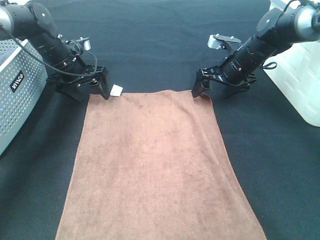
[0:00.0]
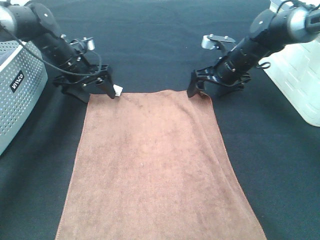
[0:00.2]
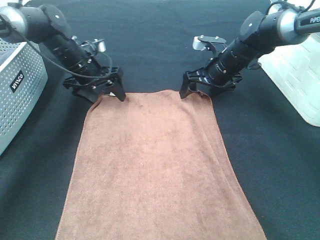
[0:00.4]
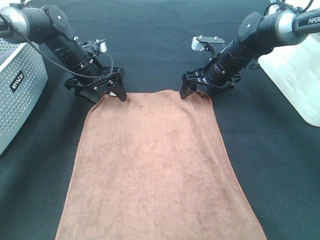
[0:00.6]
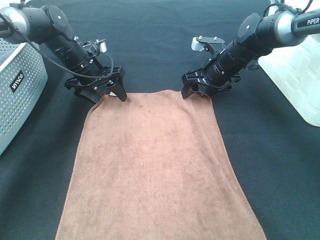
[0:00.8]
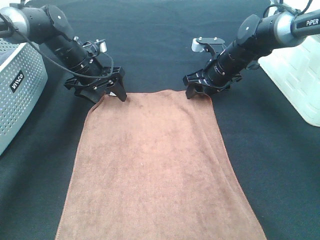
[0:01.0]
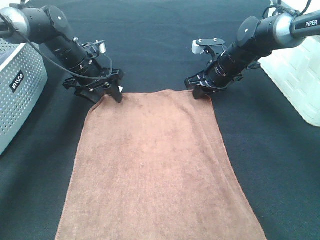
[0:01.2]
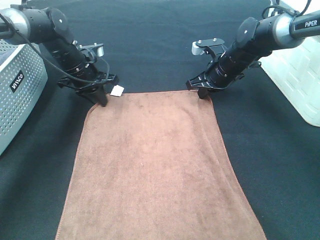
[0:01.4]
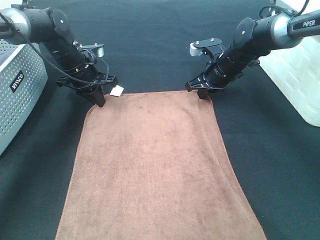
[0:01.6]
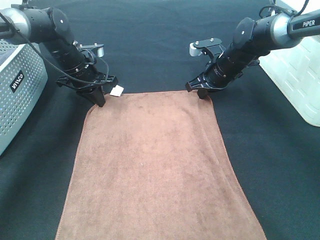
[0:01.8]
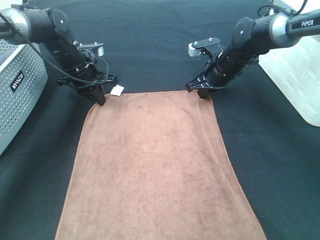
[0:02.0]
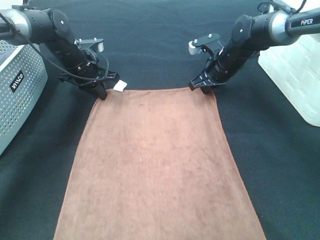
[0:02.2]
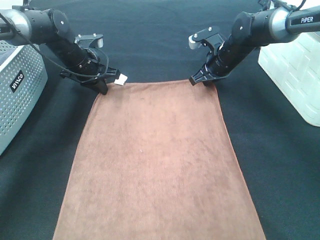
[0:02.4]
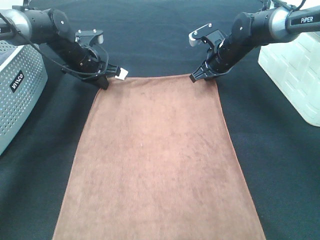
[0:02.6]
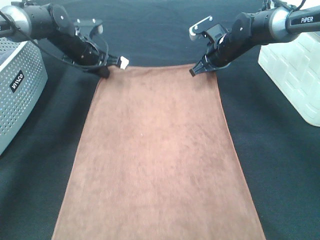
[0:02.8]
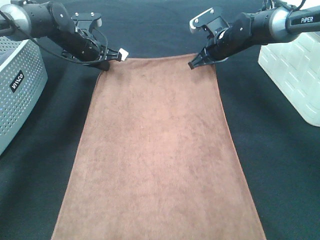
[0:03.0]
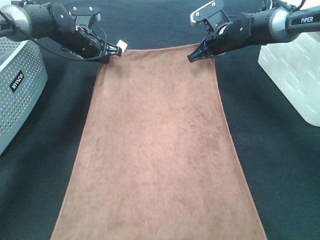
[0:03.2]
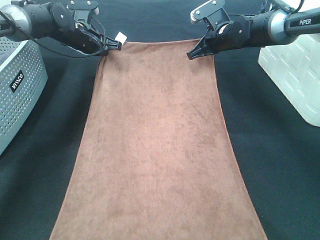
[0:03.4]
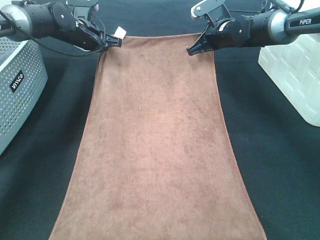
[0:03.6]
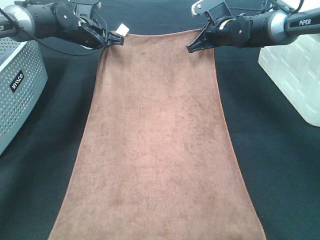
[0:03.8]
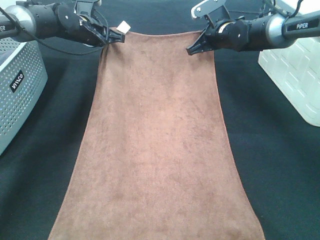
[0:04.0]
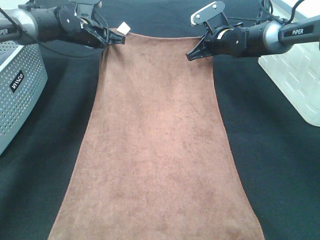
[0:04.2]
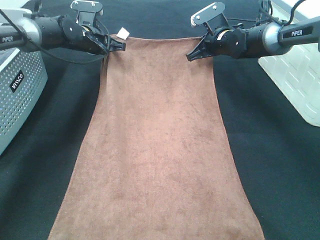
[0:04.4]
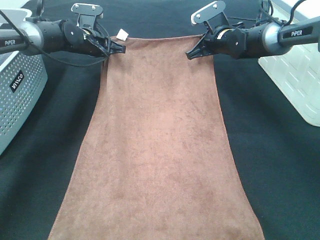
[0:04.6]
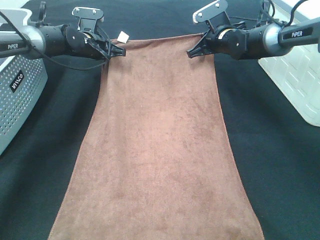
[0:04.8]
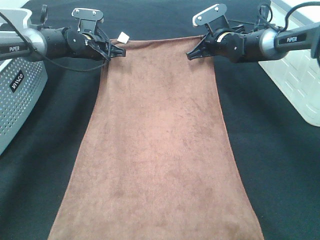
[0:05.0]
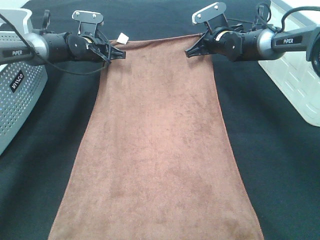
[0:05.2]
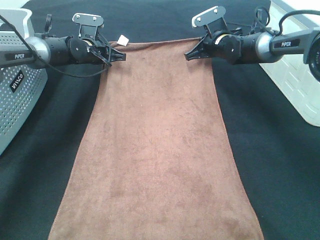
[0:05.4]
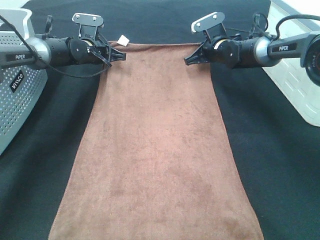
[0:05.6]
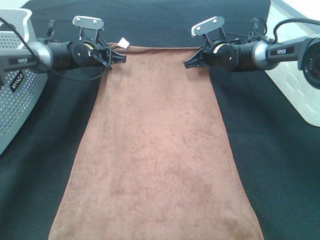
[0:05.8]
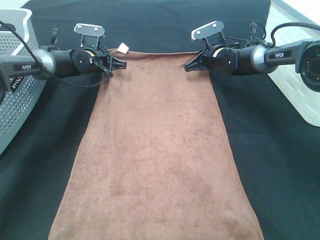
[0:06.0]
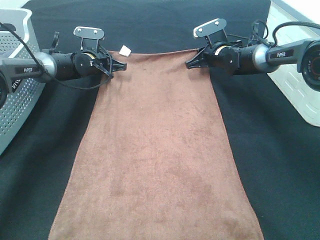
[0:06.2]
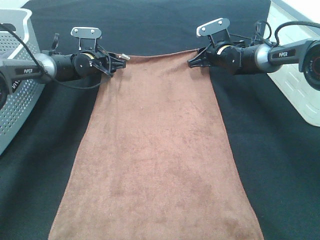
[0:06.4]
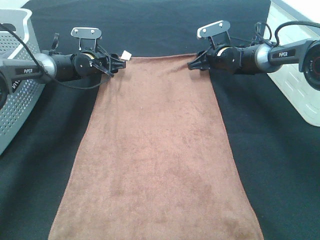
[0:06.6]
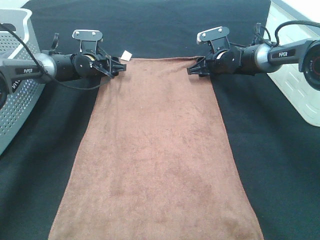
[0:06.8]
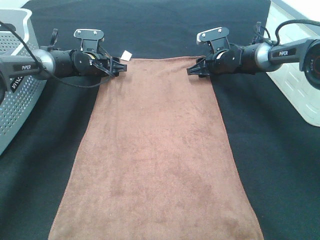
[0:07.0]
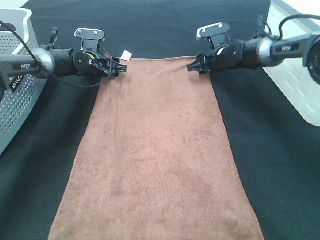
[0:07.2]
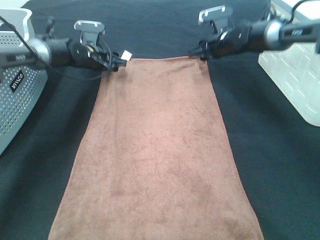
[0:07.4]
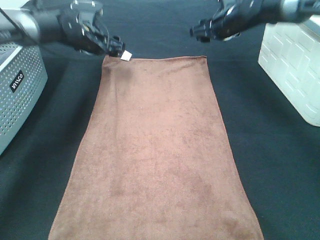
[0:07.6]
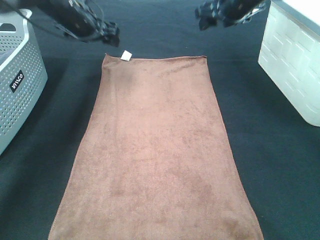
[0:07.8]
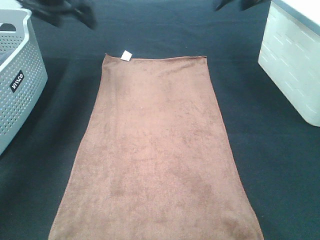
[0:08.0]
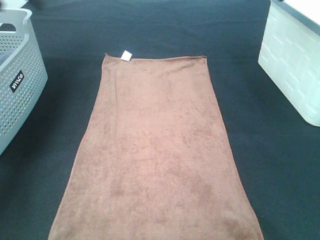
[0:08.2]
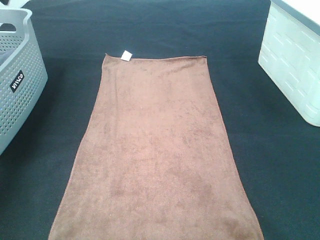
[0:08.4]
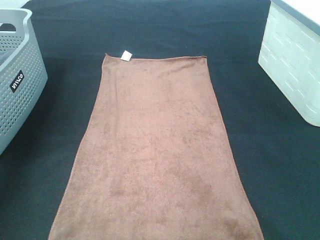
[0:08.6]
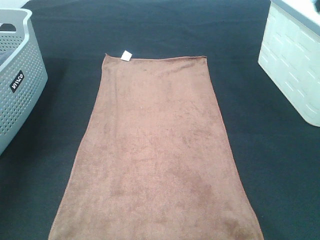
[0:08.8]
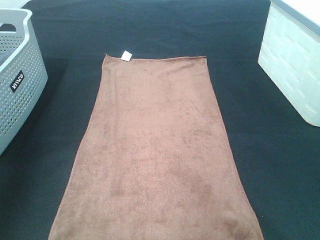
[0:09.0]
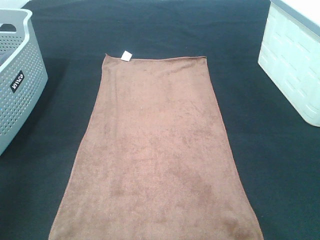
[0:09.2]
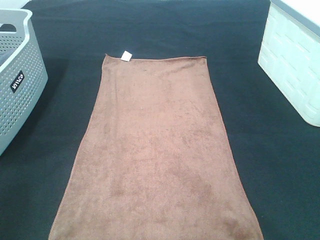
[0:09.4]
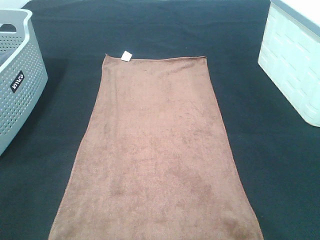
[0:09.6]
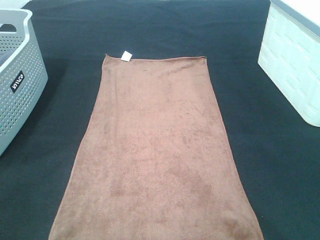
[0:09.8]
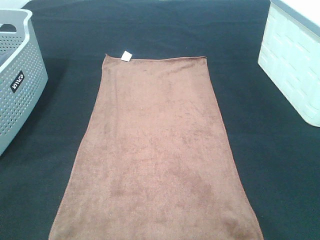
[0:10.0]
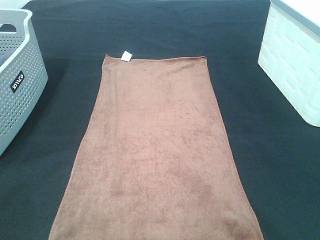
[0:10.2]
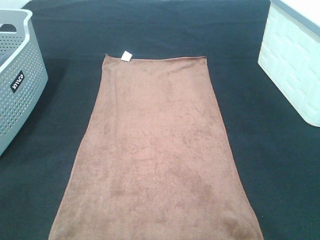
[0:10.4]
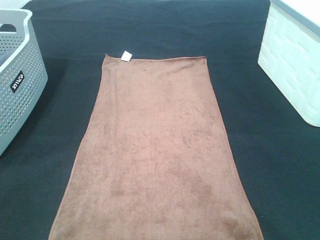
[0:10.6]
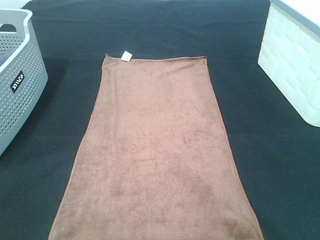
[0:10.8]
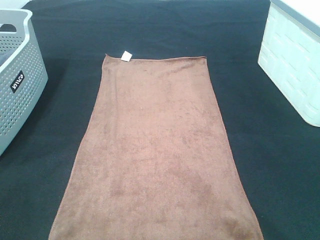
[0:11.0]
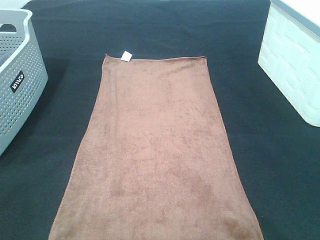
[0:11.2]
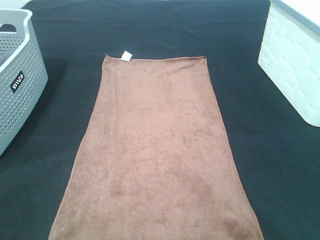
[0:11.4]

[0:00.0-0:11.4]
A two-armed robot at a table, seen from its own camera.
Task of the whole recording: Remove the towel and place it.
0:00.0 to 0:01.4: The right gripper closes up. The left gripper closes up.
0:04.2 to 0:05.6: The left gripper moves downward, some 5 cm.
0:05.6 to 0:07.2: The right gripper opens. The left gripper opens its fingers.
0:07.2 to 0:08.6: The left gripper goes approximately 40 cm upward, backward and to the left, while the right gripper shifts approximately 40 cm upward and backward.
0:08.6 to 0:10.0: Both grippers move backward, approximately 40 cm.

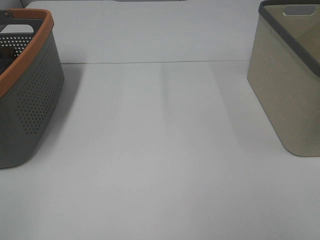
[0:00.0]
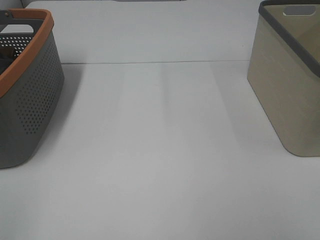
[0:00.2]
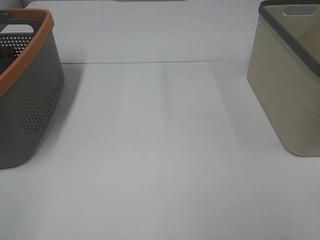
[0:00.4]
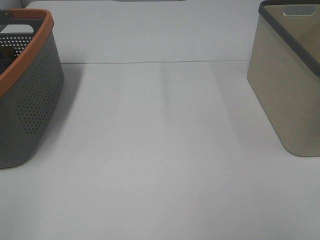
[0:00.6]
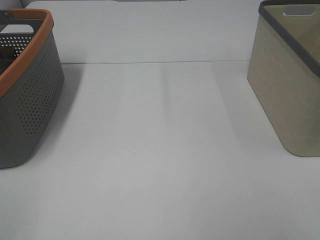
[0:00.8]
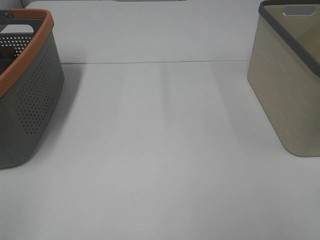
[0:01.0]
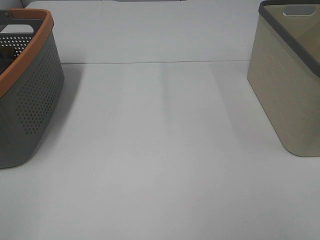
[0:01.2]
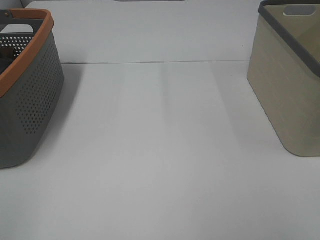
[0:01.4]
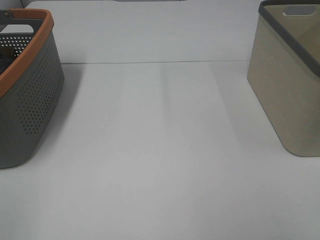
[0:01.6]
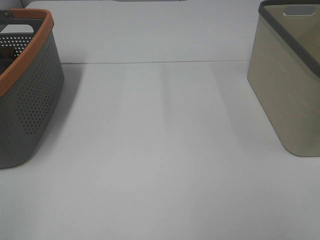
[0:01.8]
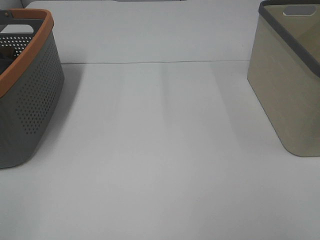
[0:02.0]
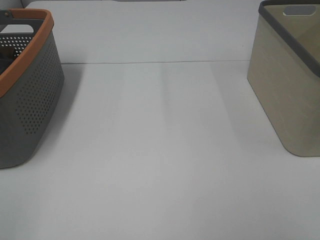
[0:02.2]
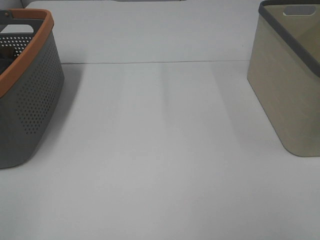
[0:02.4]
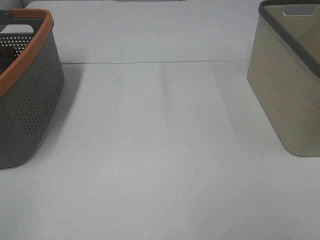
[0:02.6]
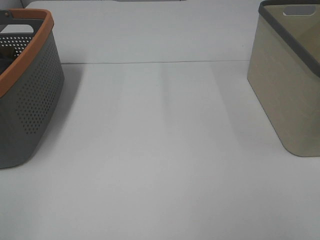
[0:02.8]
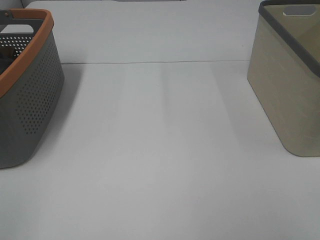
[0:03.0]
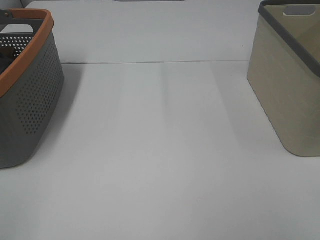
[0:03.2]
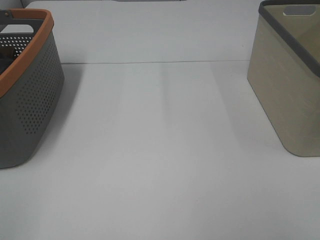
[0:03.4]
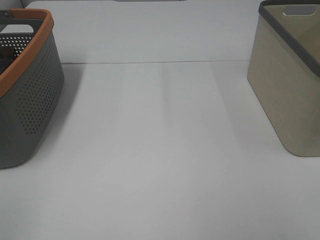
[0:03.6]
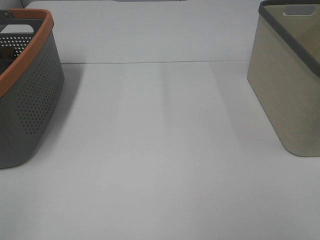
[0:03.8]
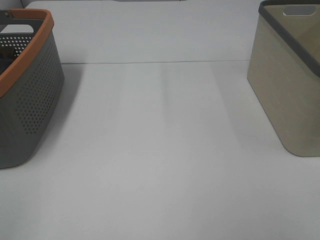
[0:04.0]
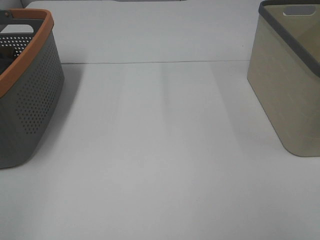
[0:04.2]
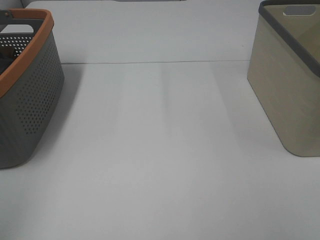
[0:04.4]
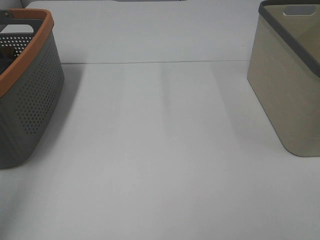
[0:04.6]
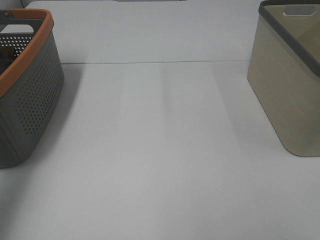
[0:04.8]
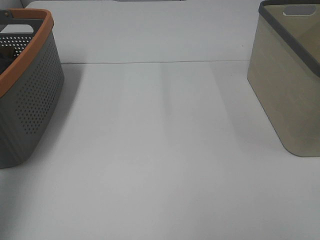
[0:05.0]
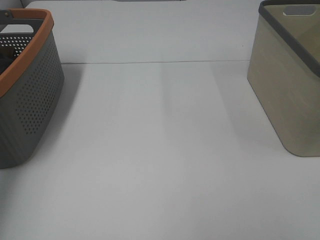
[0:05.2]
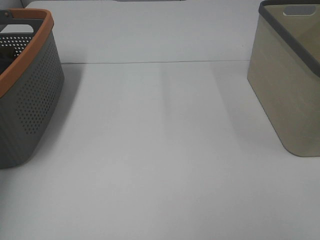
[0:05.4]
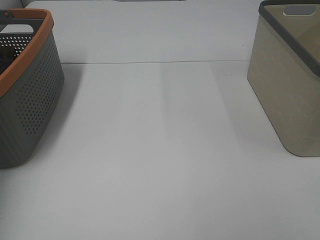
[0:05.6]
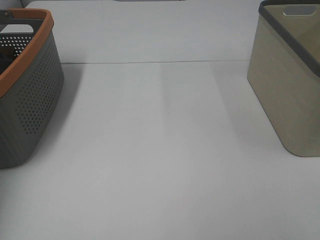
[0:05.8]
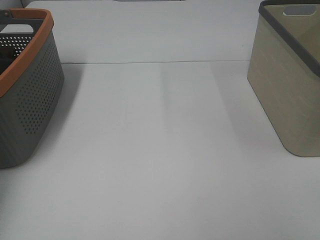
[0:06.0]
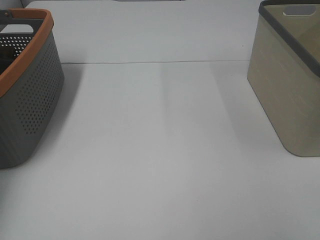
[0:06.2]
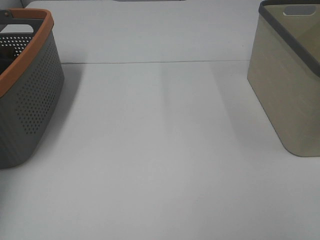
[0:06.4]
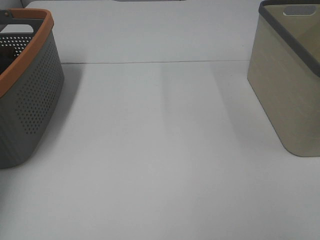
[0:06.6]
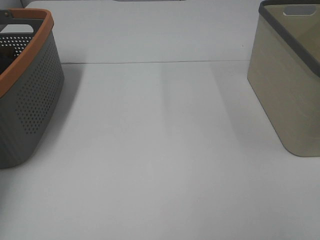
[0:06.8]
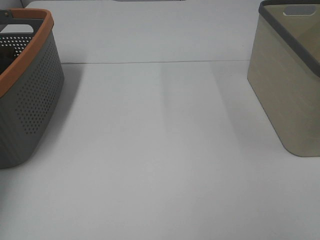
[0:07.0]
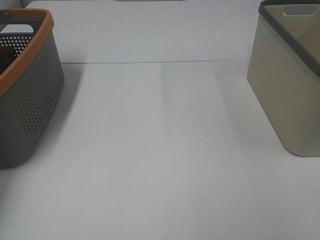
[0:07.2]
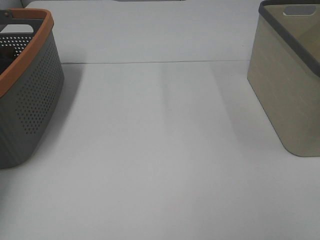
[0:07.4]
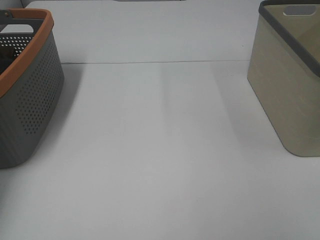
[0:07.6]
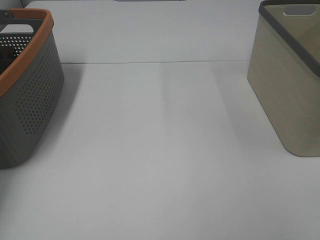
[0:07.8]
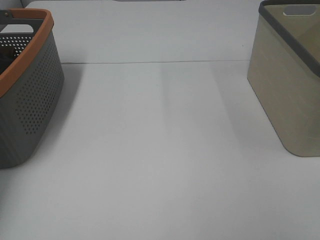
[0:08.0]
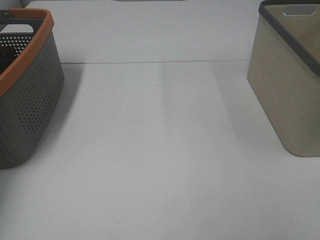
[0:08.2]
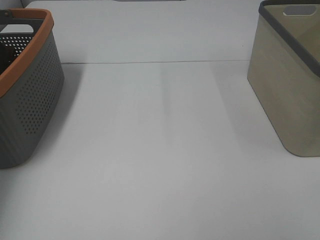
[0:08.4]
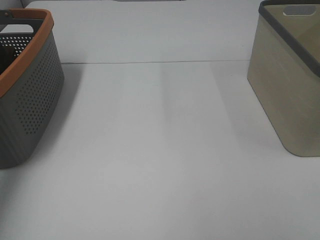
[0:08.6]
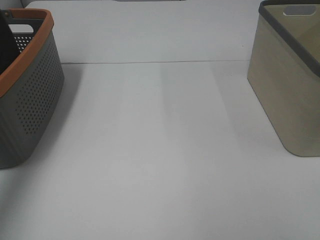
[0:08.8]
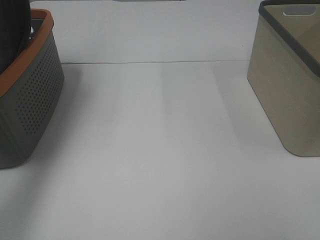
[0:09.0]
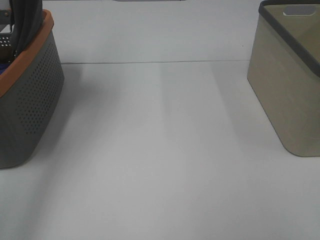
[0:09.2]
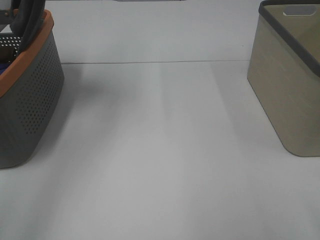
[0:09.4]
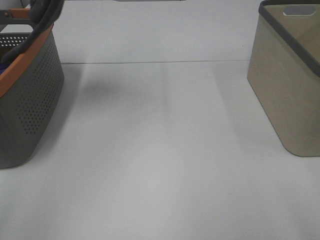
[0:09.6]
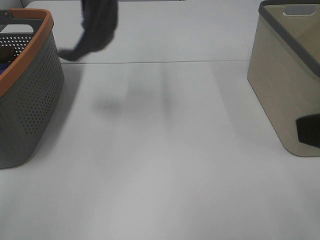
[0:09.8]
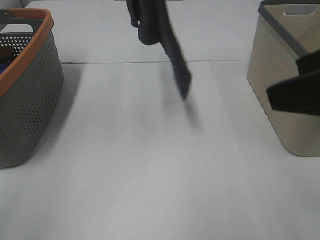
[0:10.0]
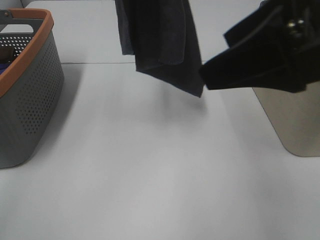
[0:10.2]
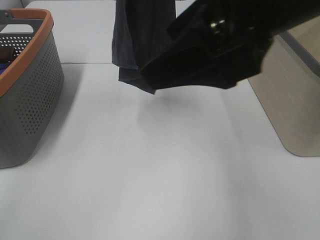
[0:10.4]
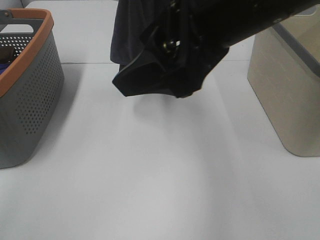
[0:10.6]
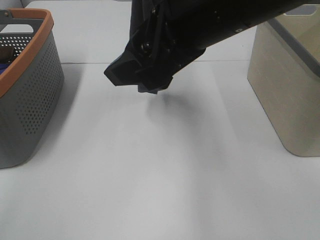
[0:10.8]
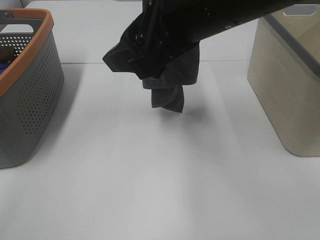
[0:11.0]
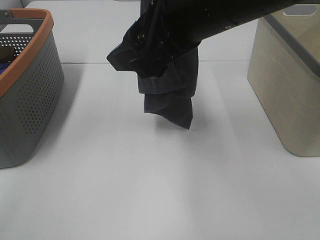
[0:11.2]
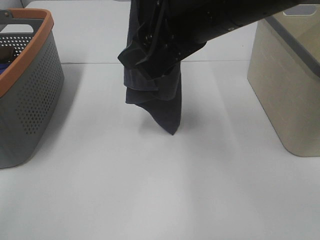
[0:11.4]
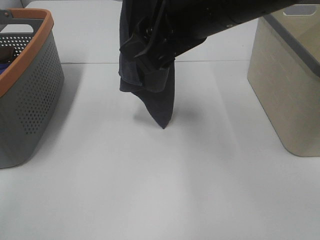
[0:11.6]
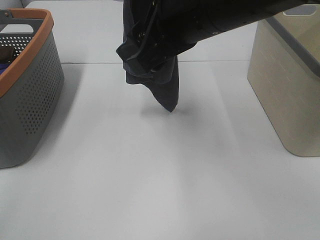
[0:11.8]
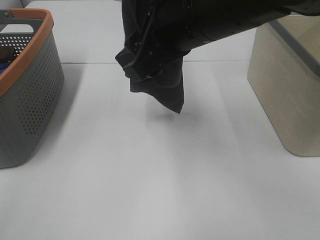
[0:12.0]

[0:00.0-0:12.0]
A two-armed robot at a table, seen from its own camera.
Task of the whole recording: Remove the towel and place it.
0:00.0 to 0:03.0: Both grippers stay put.
0:07.6 to 0:09.0: The left gripper heads upward and to the right, covering about 30 cm.
0:09.0 to 0:10.4: The right gripper is displaced forward, to the left and upward by approximately 25 cm; the left gripper goes roughly 20 cm to the right.
0:10.4 to 0:12.0: The right gripper heads forward, downward and to the left, covering some 10 cm.
